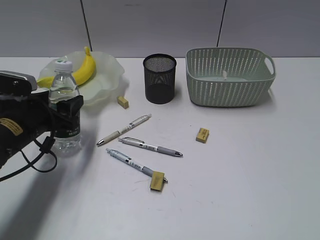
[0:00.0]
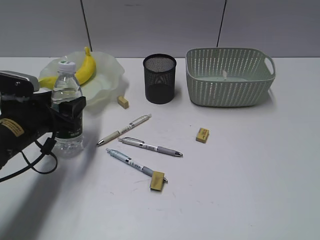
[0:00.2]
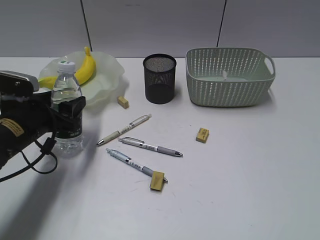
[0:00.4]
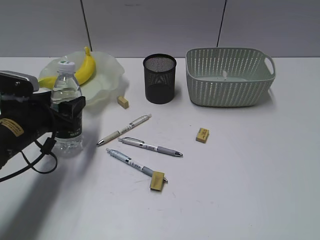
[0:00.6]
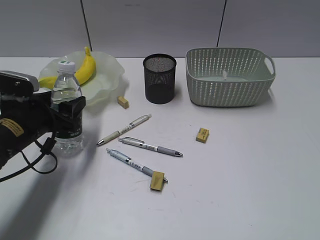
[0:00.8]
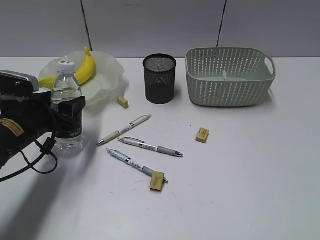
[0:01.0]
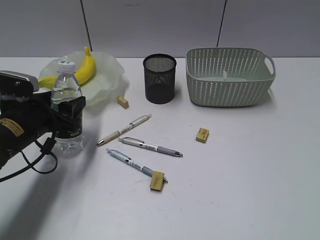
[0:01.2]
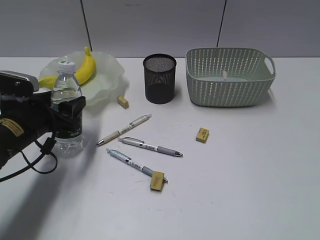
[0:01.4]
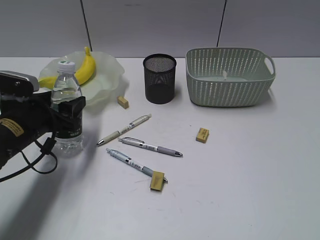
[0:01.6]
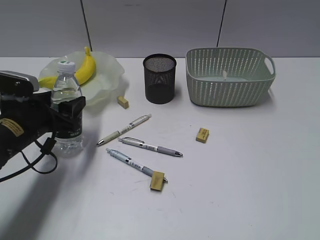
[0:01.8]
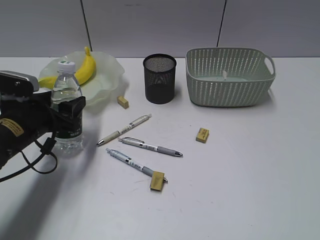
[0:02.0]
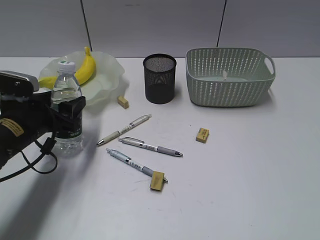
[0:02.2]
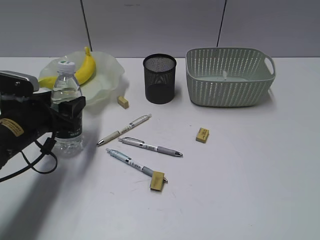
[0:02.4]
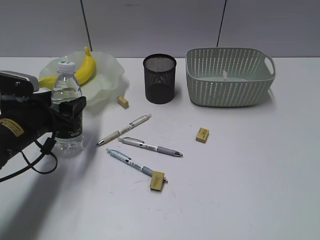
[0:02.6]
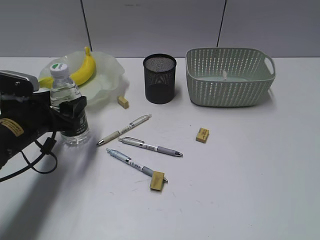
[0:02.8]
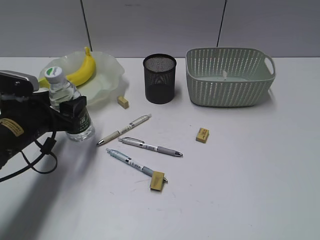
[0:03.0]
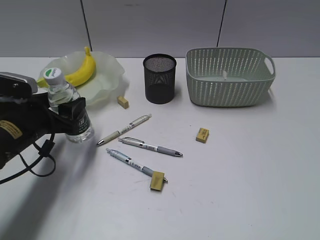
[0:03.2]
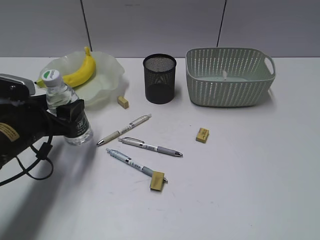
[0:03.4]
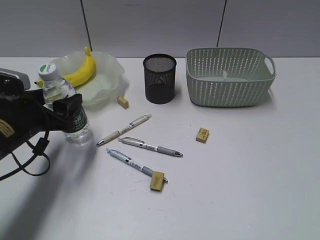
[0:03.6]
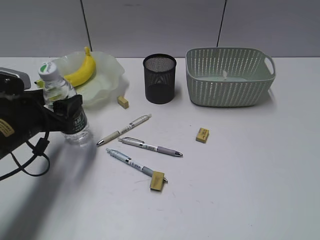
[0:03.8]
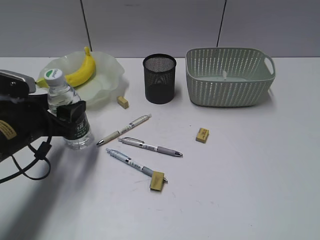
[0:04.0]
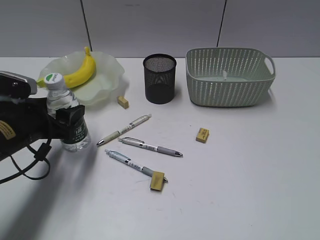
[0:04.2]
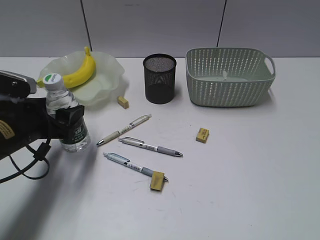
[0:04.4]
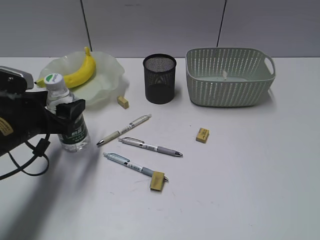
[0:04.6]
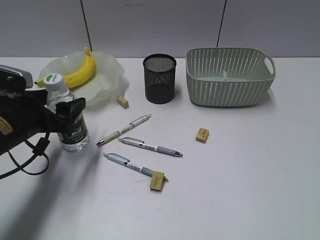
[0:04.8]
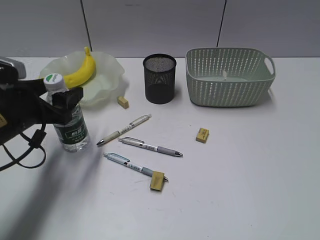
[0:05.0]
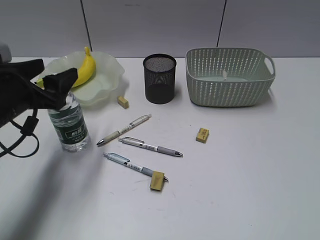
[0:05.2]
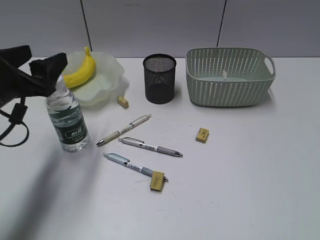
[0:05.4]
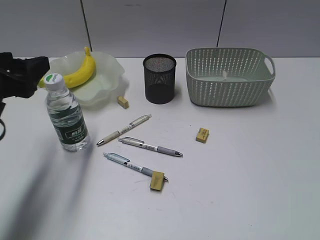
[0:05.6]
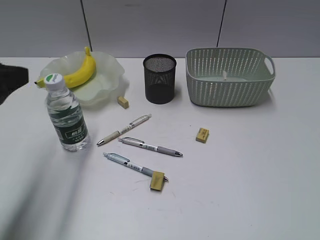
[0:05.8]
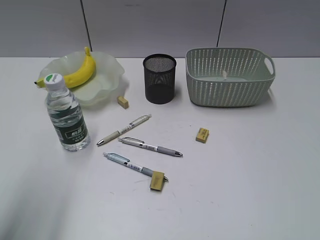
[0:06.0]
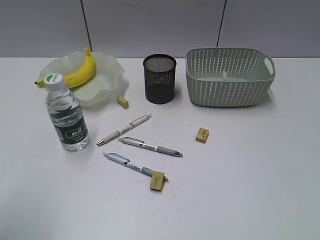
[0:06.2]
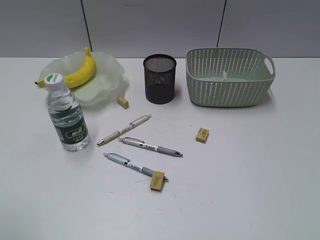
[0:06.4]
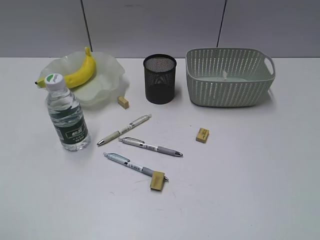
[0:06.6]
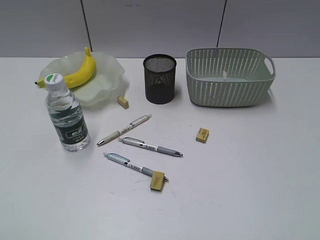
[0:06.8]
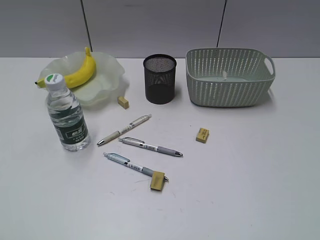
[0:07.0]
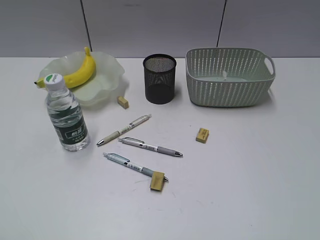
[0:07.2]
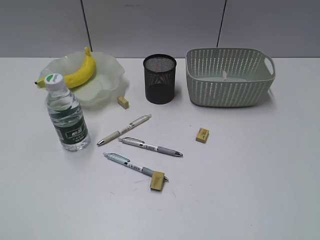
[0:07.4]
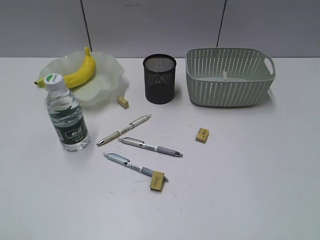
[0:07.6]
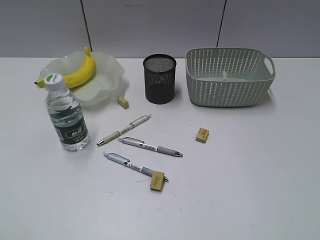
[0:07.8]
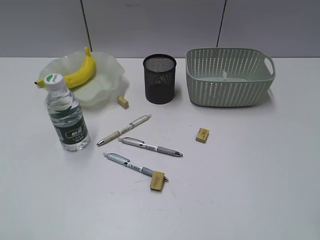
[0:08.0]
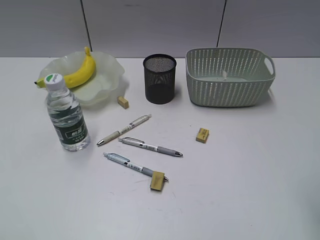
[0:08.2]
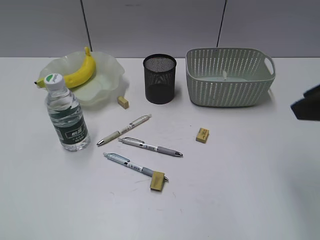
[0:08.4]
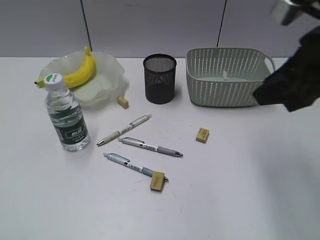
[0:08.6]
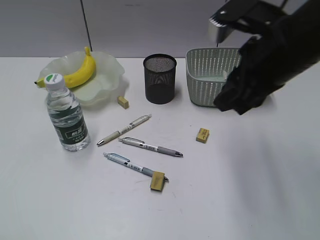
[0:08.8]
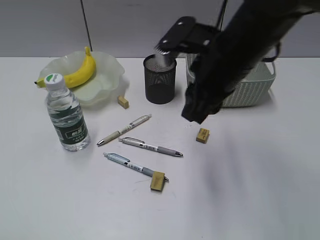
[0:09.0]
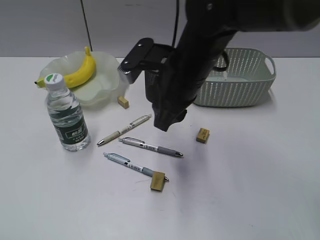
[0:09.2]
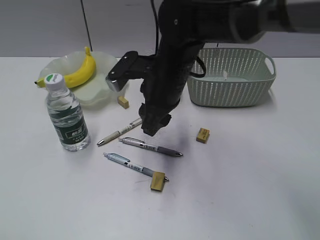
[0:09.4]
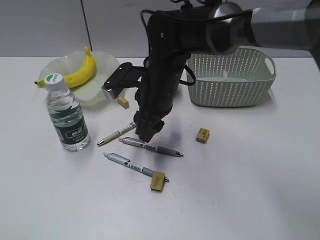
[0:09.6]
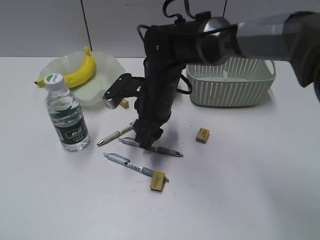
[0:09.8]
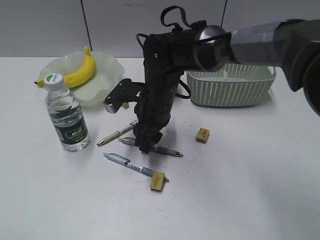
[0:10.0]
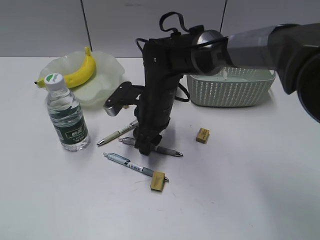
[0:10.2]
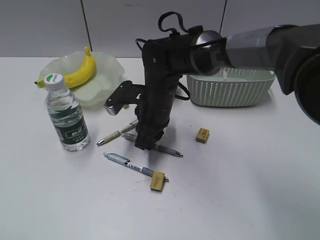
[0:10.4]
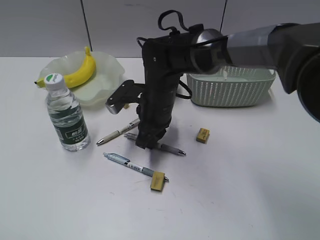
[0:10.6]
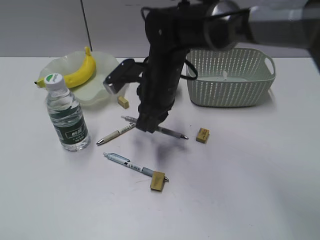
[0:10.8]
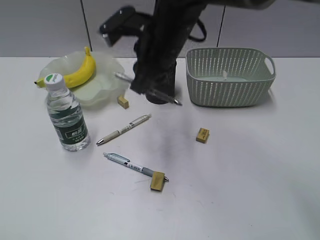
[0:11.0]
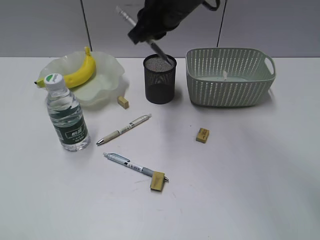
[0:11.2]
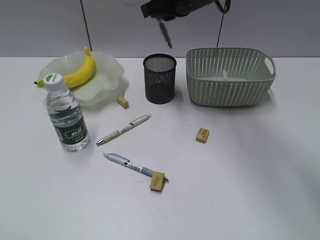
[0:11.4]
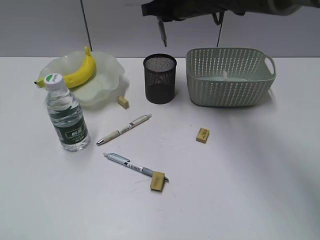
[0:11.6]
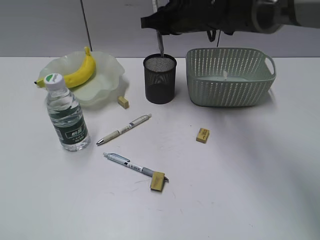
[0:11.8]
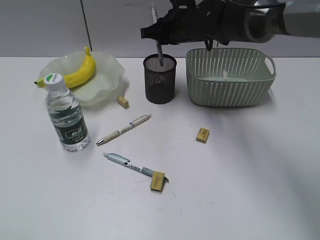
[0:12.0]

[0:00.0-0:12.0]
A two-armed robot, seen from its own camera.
Step, 0:00.0 to 0:05.2: Stand the bottle with left gripper.
Step, 0:05.4 to 0:10.4: Grasp the gray pen with right gripper.
0:00.0 to 0:03.0: Both grippers stay put.
0:03.0 to 0:04.4: The grippers make only small movements.
0:04.4 to 0:06.0: The left gripper goes about 20 cm upward and backward.
0:06.0 to 0:07.6: The left gripper is displaced backward by about 15 cm.
0:07.6 to 0:09.0: The right gripper moves forward and to the left, roughly 35 cm.
0:09.0 to 0:10.4: The right gripper travels downward, to the left and forward by roughly 20 cm.
0:10.4 to 0:12.0: The right gripper goes some 15 cm forward, upward and to the right.

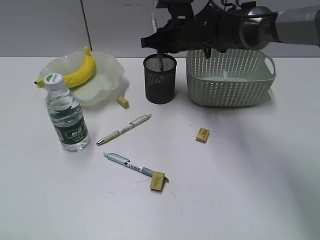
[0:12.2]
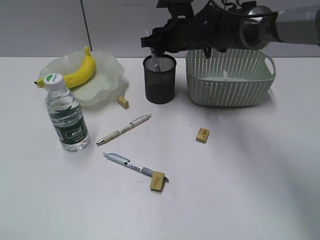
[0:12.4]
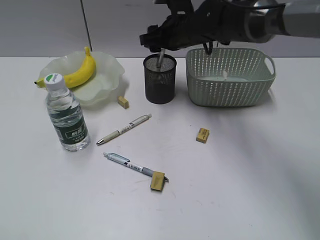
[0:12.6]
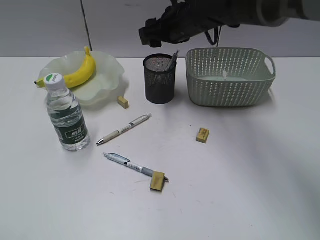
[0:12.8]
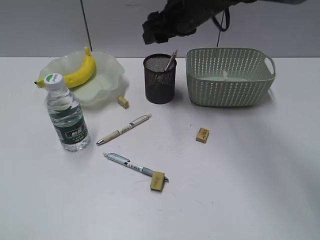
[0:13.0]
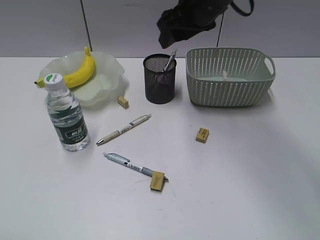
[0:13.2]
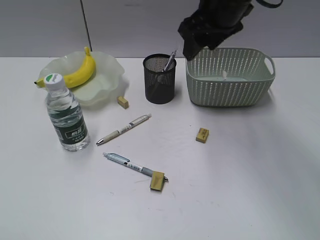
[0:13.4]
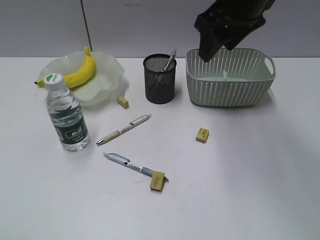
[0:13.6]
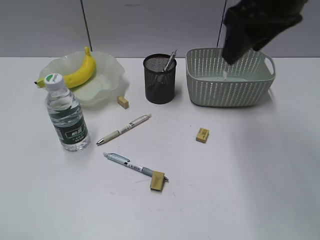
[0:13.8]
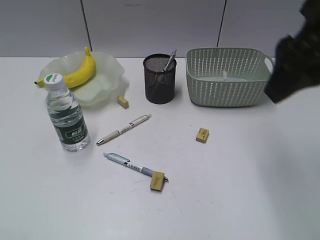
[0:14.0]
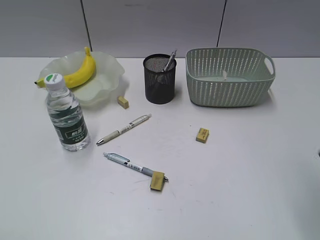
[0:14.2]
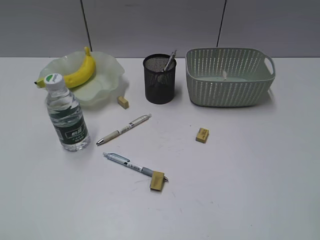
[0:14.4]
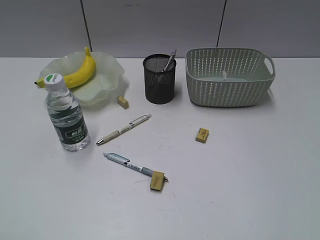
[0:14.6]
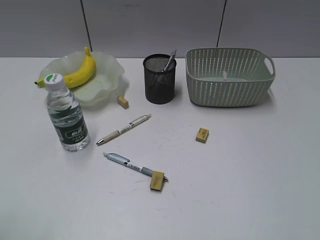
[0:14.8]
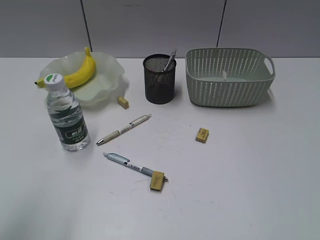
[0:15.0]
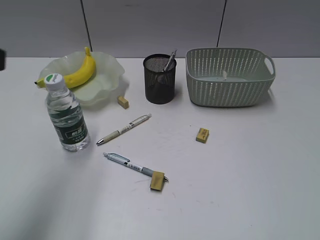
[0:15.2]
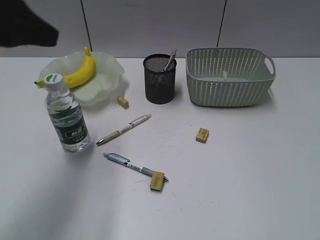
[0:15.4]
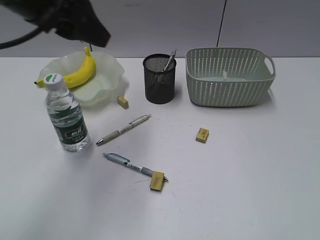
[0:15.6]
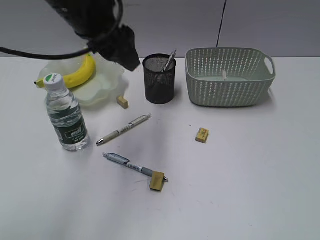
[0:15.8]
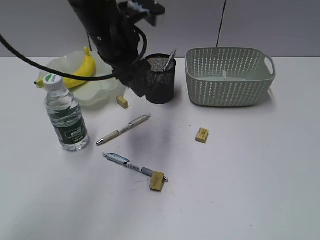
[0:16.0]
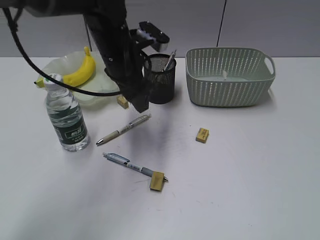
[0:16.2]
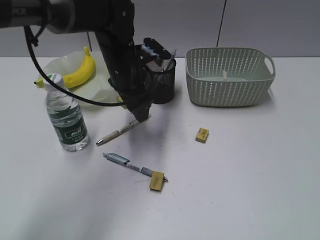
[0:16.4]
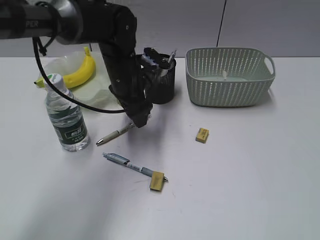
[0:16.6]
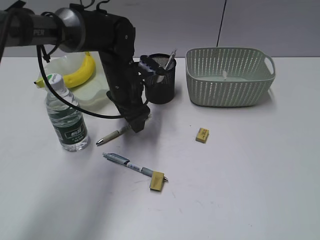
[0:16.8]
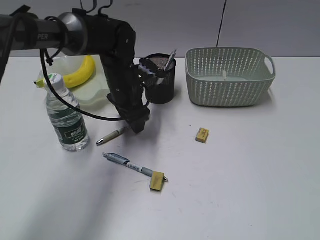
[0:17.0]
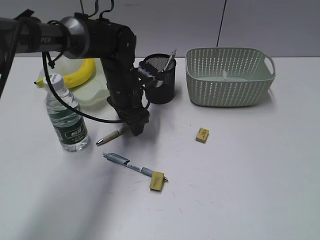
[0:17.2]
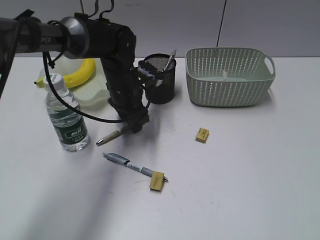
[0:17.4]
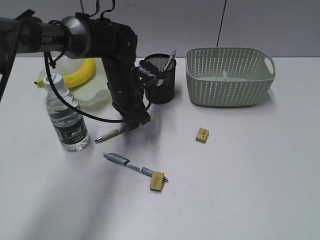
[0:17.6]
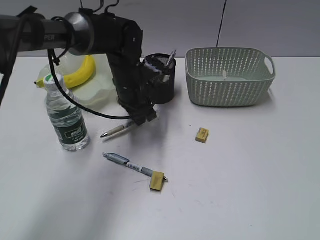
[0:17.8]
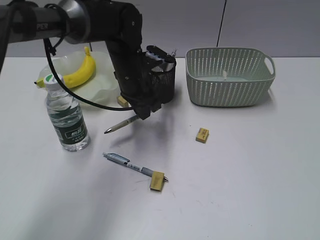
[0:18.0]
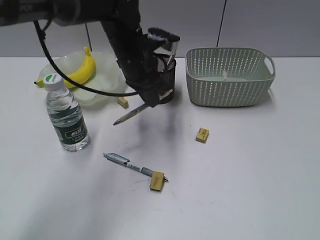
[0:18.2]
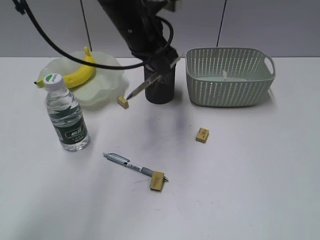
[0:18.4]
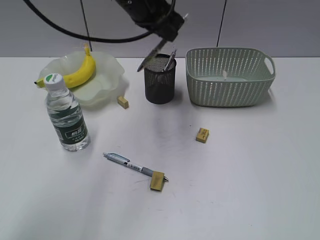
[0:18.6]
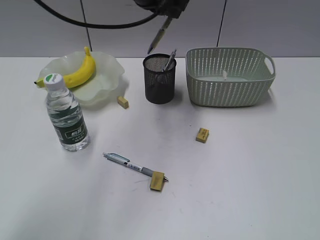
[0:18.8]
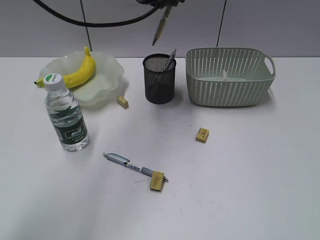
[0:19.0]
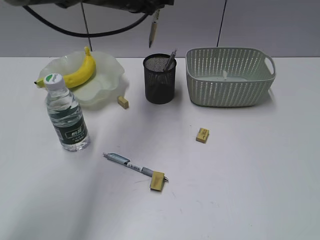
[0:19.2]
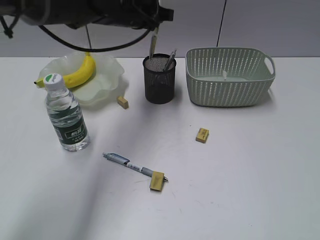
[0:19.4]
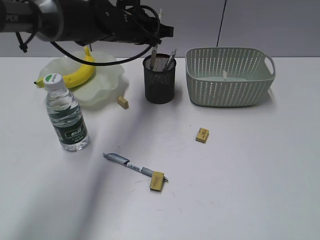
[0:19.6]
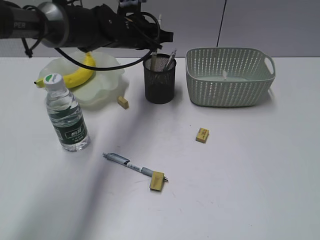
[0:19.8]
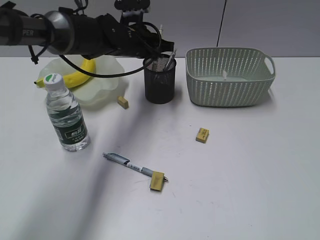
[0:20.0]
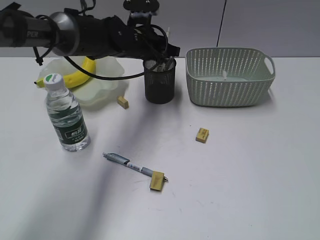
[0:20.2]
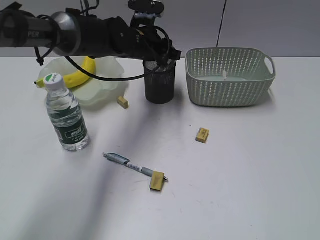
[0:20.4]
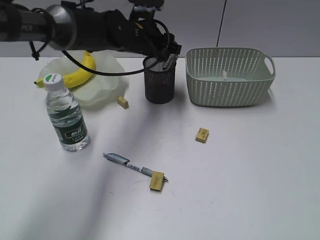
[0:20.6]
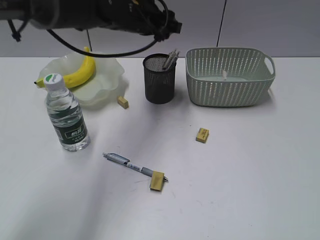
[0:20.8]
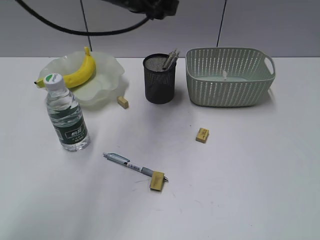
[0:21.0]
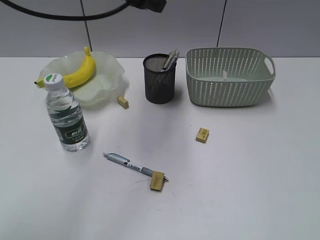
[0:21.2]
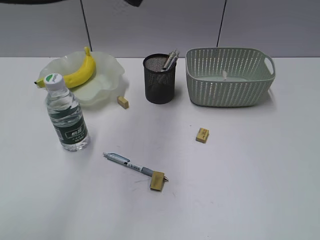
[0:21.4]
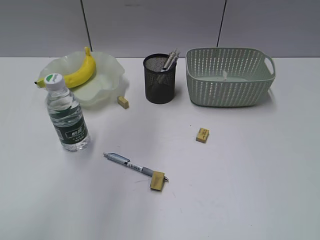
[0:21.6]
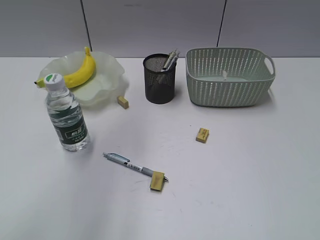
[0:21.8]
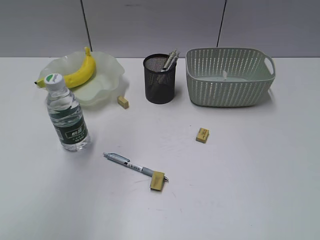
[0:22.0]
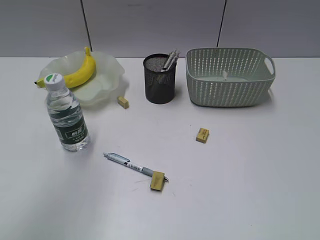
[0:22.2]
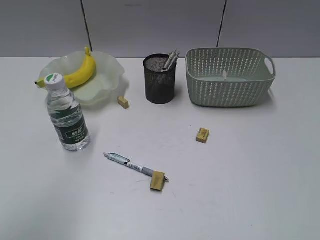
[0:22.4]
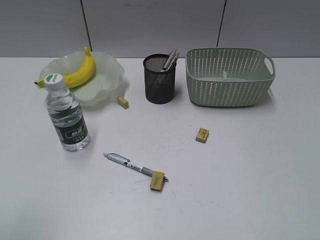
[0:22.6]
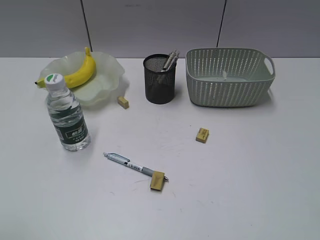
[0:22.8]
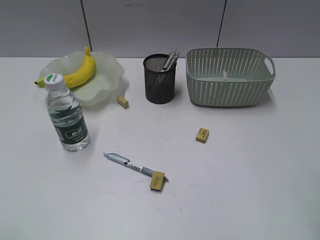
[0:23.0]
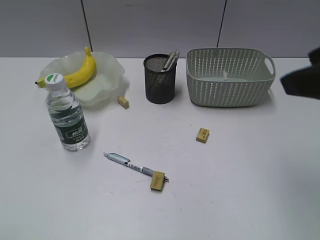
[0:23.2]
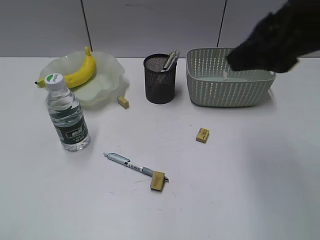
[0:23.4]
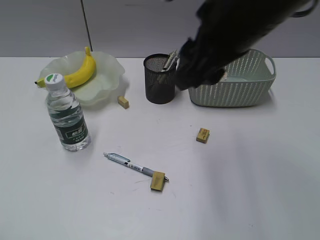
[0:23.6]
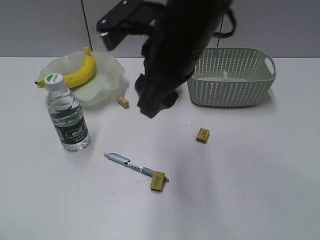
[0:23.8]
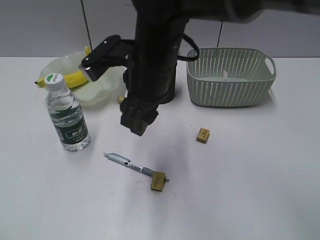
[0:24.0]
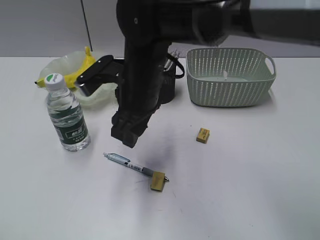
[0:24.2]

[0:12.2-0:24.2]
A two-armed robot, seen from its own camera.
Step, 0:12.8 to 0:17.6: Grasp the yellow pen with left gripper.
Step, 0:17.8 to 0:20.4: Place the yellow pen in pen holder with left gripper.
0:12.2 to 0:13.8: The right gripper shifts about 25 cm upward, backward and to the right, and opens up.
0:13.8 to 0:15.2: The left gripper goes roughly 15 cm forward and to the right; the right gripper travels backward and to the right by approximately 35 cm.
0:15.2 to 0:16.6: The left gripper moves forward, to the right and downward, some 35 cm.
0:16.6 to 0:18.2: The left gripper closes.
0:18.2 to 0:19.8: The left gripper is displaced forward by about 5 cm, and goes upward and returns, about 10 cm each way.
0:19.8 to 0:21.2: The left gripper is displaced upward and backward by about 15 cm, and opens up.
0:21.2 to 0:22.6: The left gripper goes roughly 40 cm backward and to the left.
0:22.6 to 0:24.2: The left gripper is displaced backward and downward by roughly 10 cm; the right gripper is displaced to the left and forward by about 40 cm.
